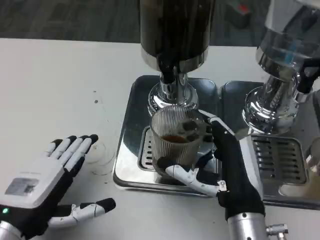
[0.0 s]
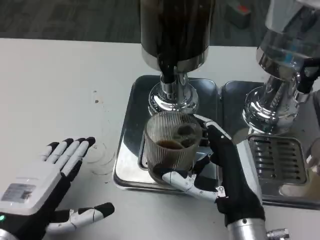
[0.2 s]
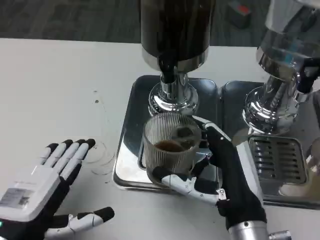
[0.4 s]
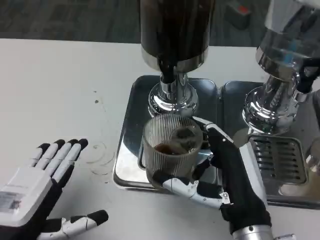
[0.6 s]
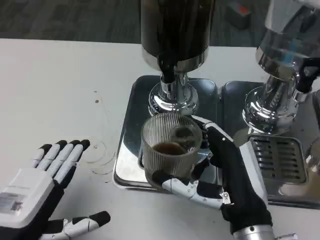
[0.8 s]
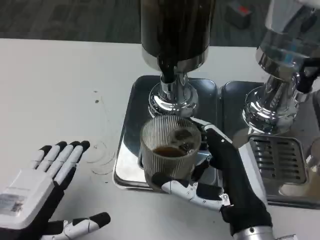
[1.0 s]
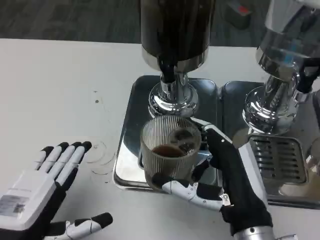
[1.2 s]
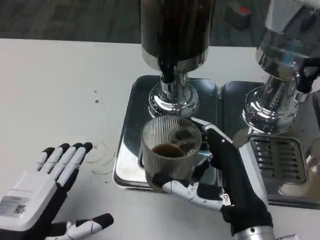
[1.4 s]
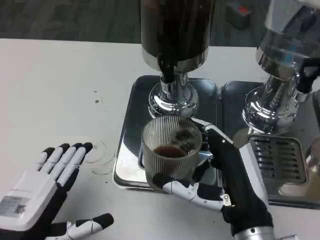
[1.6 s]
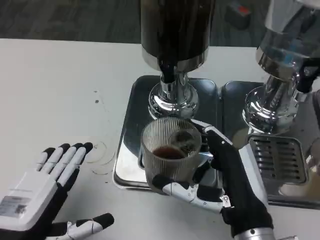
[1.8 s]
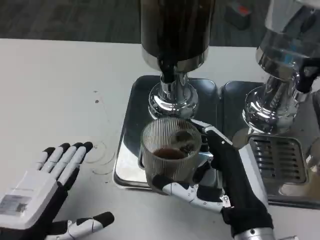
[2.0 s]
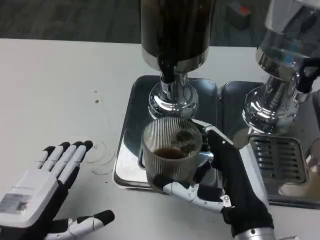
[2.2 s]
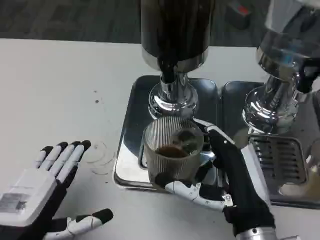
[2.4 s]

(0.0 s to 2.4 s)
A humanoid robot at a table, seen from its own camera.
Task of the whole recording: Grasp the cup under the faucet to collect the drink, then remove the cup.
0.0 s - 1.2 s: The hands make only small movements.
1.2 s - 2.4 s: The two hands keep their place.

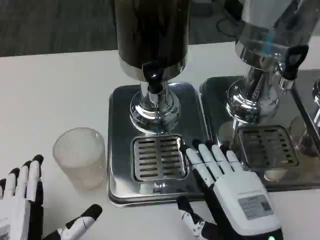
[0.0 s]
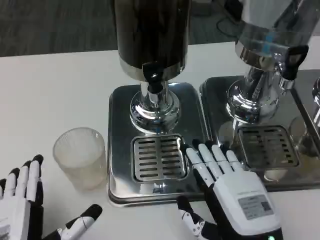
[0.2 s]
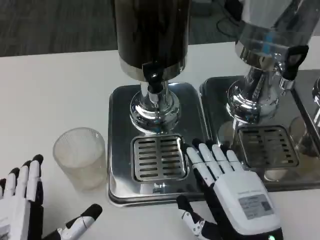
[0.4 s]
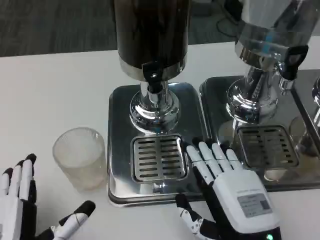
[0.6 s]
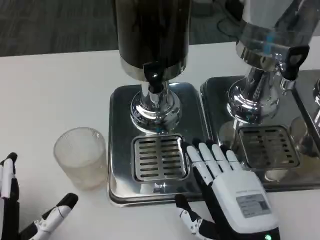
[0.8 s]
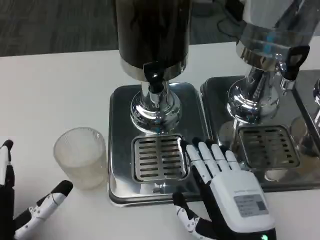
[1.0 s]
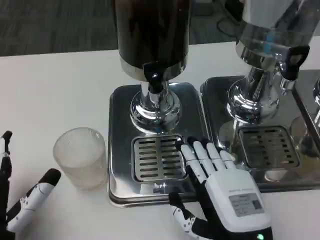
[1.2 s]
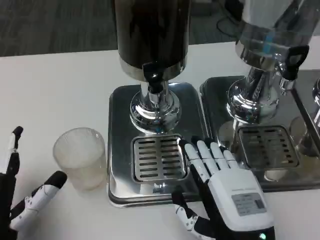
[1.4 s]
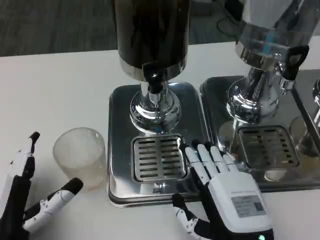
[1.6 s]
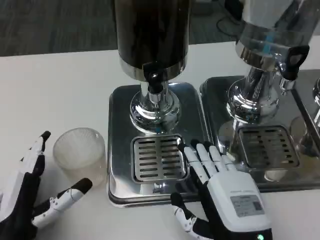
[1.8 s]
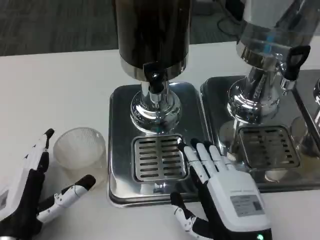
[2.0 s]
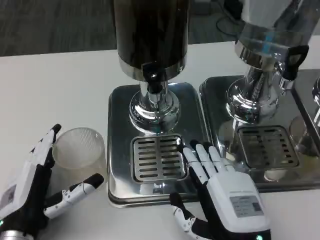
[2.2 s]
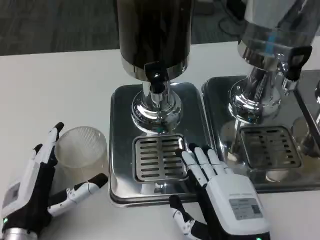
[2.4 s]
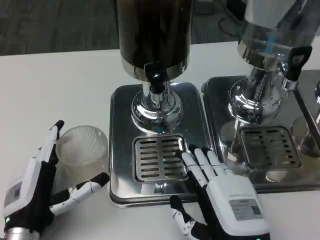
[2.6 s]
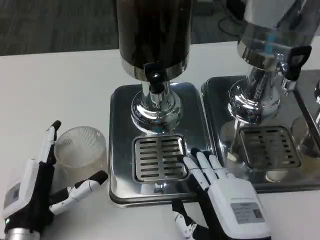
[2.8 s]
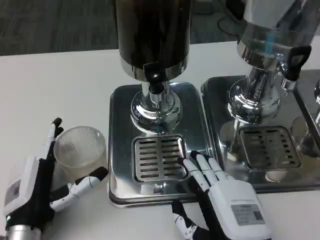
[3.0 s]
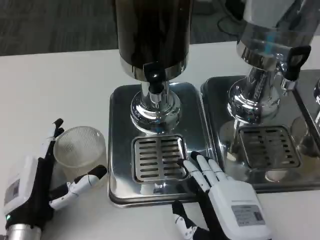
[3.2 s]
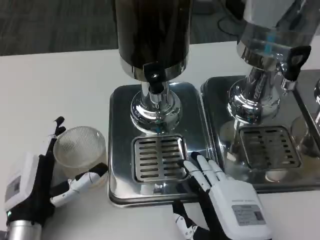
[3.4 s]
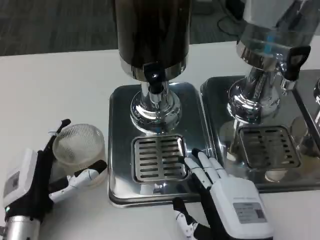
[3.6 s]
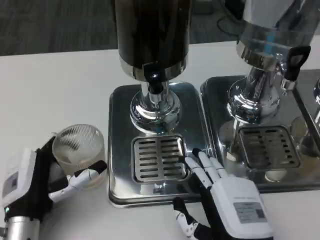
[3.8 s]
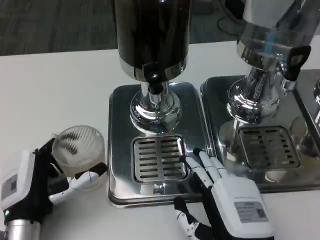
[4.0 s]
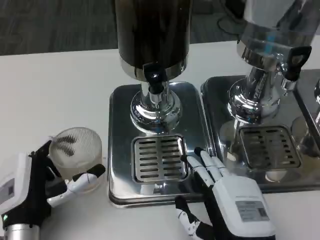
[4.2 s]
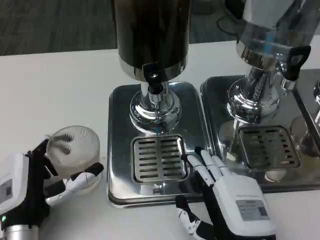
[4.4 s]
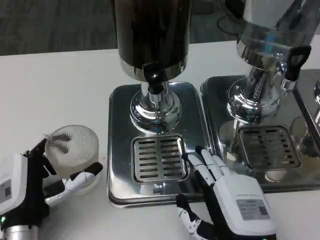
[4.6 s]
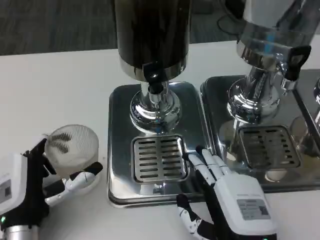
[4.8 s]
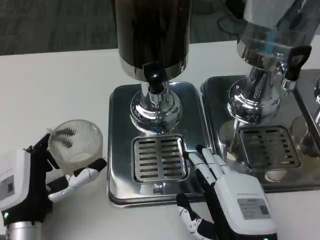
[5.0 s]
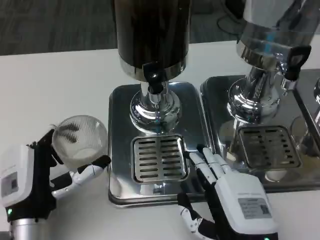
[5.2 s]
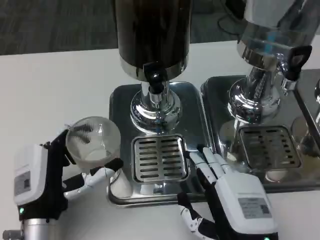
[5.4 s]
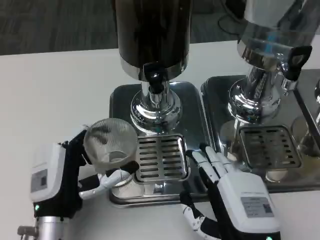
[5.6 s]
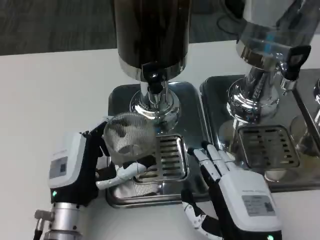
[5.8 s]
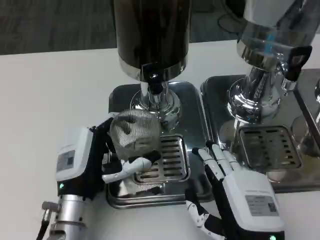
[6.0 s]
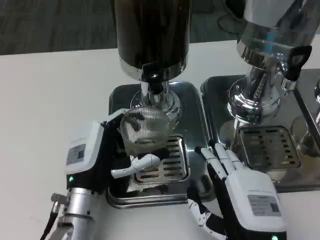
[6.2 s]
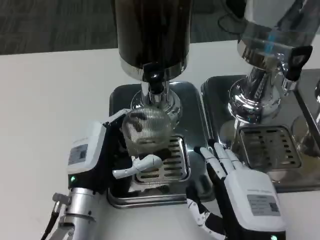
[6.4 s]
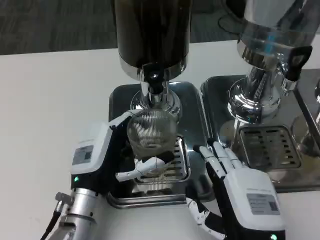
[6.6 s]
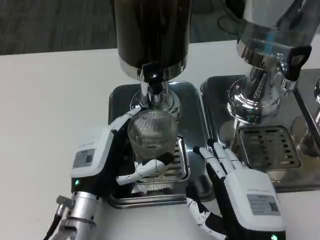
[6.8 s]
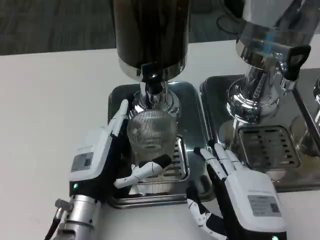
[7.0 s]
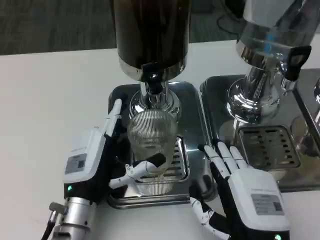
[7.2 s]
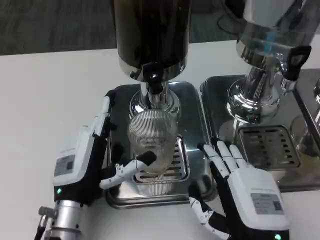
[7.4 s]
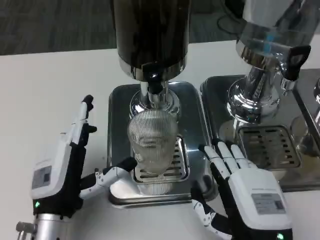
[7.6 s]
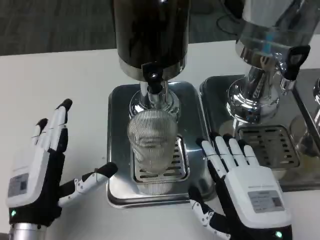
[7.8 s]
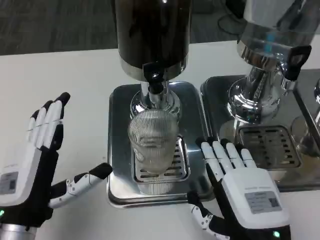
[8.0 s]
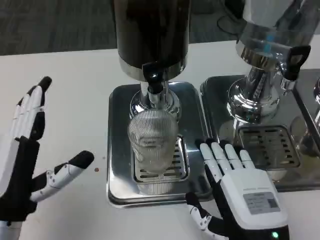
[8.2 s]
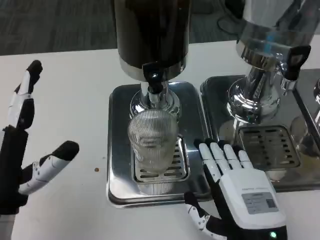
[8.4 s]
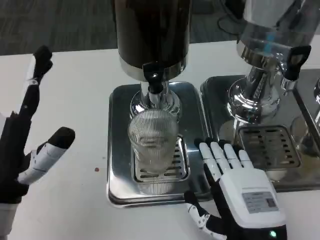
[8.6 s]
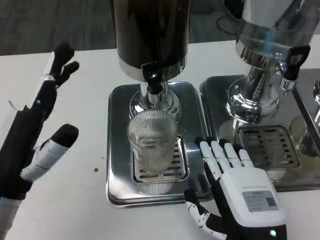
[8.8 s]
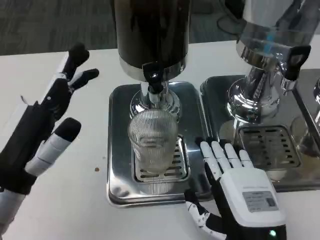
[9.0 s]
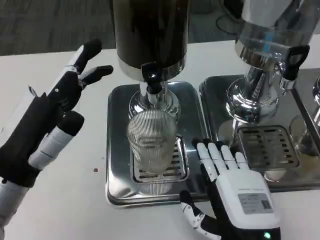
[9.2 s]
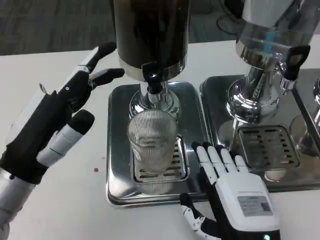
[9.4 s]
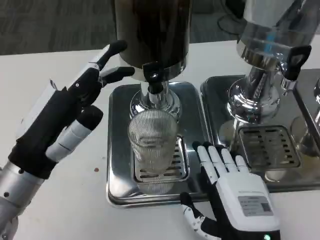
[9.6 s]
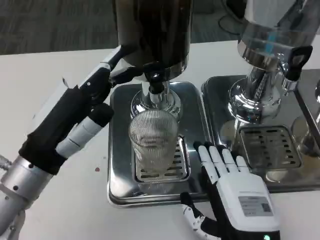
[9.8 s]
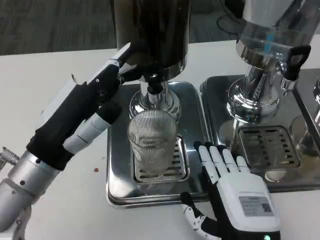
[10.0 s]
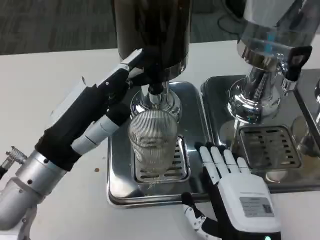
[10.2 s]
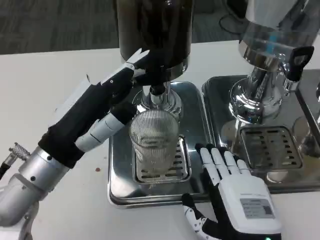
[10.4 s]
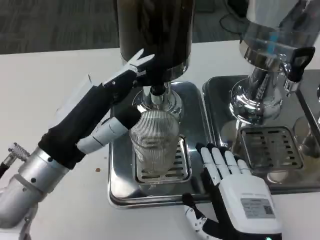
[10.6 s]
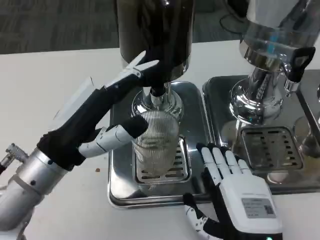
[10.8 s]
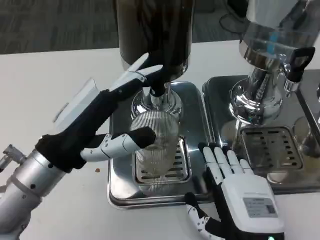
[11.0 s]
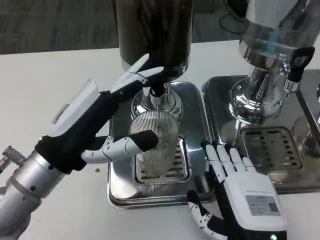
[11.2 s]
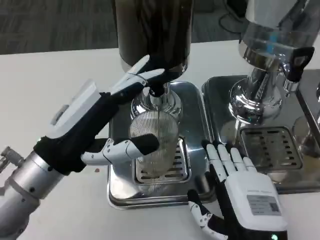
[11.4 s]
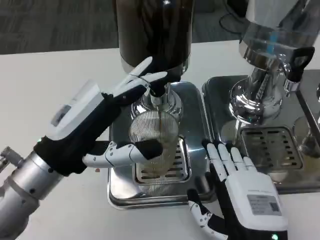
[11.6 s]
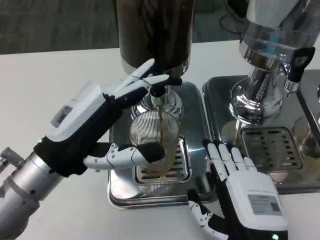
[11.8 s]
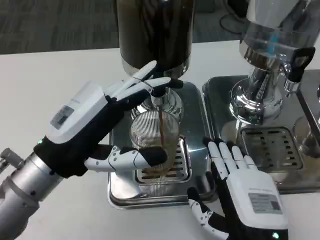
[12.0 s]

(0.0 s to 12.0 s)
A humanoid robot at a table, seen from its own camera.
Task of the whole recording: Grasp the cup under the faucet to collect the drink, then remove the cup.
0.0 s - 1.6 s: The left hand shifts about 5 cm to the left.
1.6 s - 3.0 s: The left hand changes place by some 5 cm.
3.0 s - 4.4 s: The hands move only a little.
4.4 s - 6.0 s: The left hand shifts some 5 cm to the right.
6.0 s - 7.6 s: The hands make only small movements.
7.6 s - 9.0 s: The left hand heads upward and to the left, covering roughly 10 cm.
9.0 s - 10.4 s: The left hand shifts by approximately 5 cm.

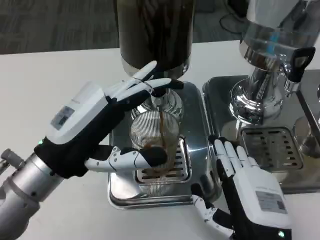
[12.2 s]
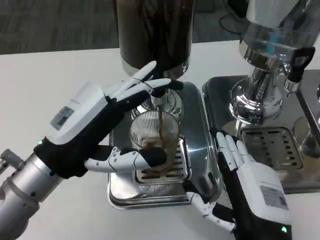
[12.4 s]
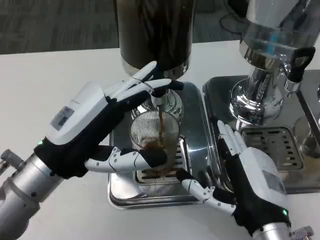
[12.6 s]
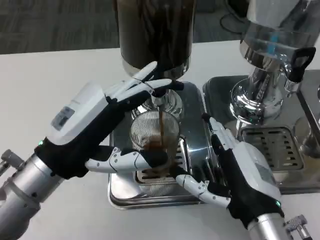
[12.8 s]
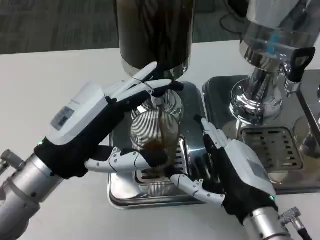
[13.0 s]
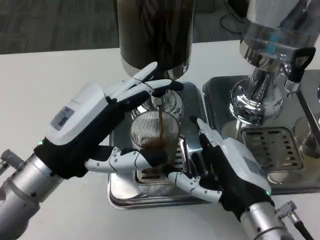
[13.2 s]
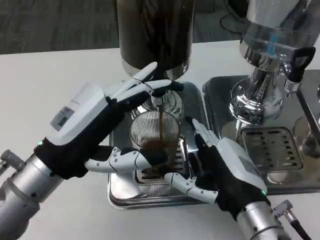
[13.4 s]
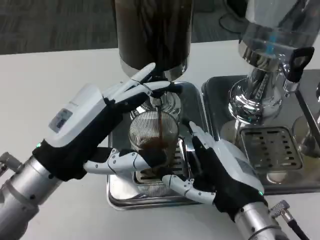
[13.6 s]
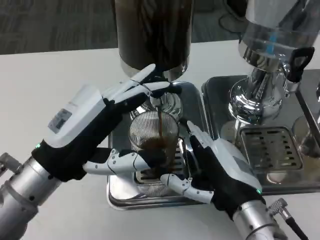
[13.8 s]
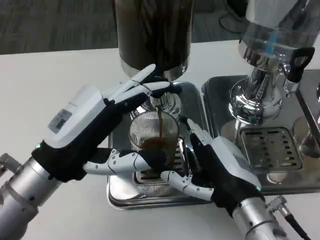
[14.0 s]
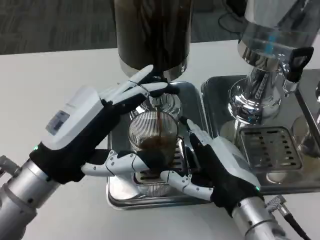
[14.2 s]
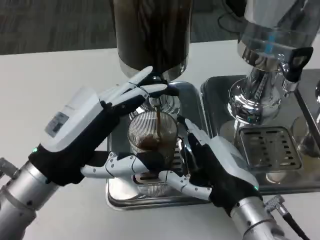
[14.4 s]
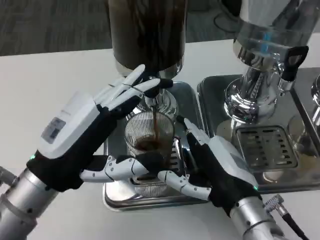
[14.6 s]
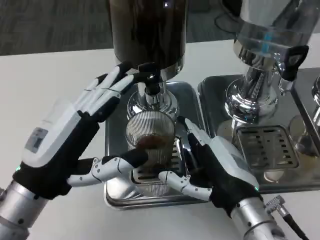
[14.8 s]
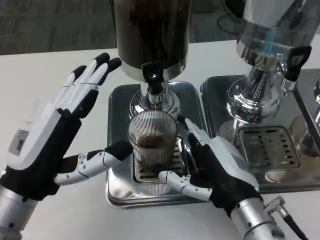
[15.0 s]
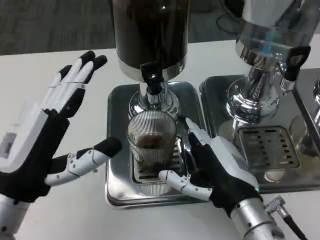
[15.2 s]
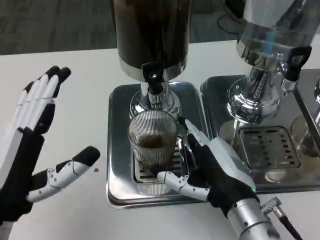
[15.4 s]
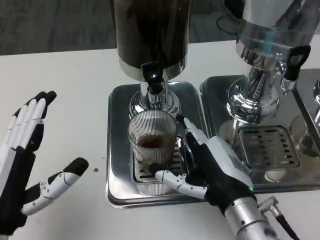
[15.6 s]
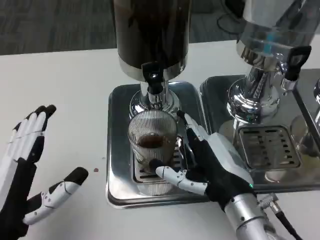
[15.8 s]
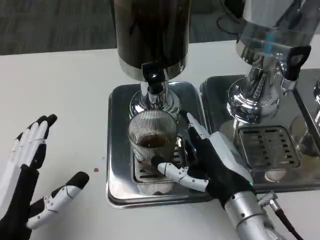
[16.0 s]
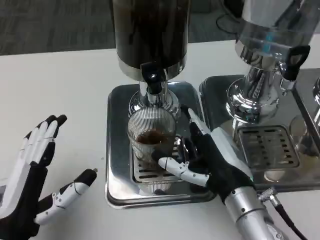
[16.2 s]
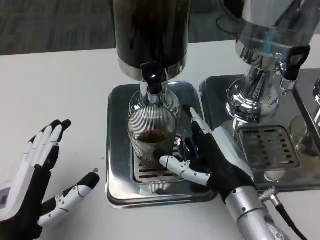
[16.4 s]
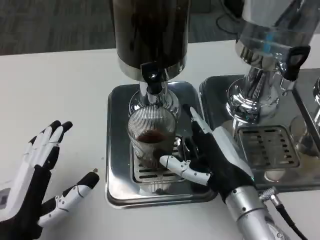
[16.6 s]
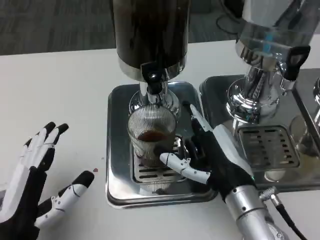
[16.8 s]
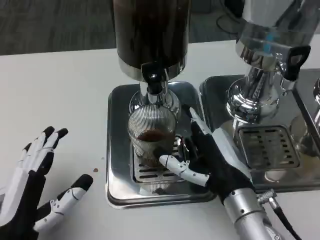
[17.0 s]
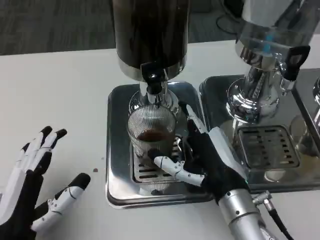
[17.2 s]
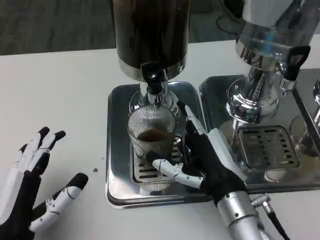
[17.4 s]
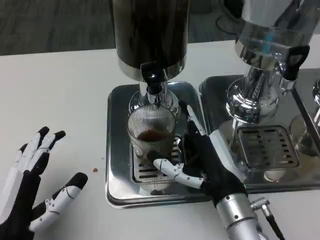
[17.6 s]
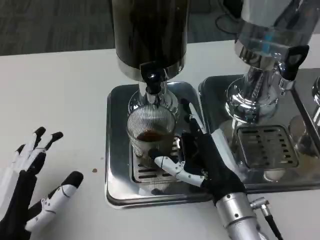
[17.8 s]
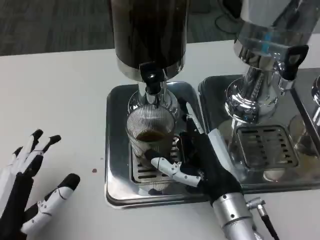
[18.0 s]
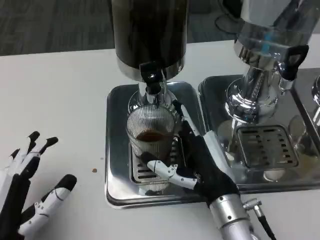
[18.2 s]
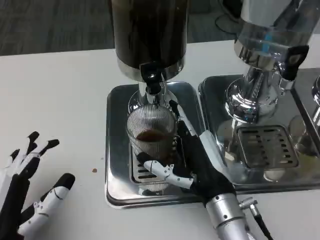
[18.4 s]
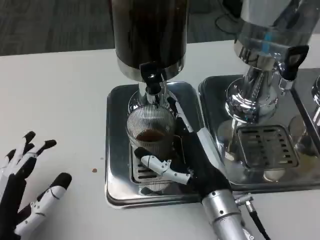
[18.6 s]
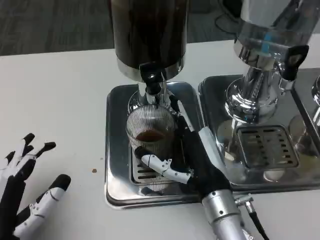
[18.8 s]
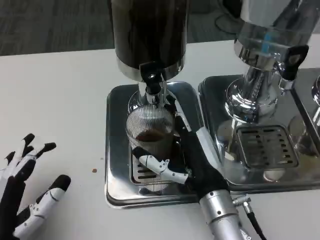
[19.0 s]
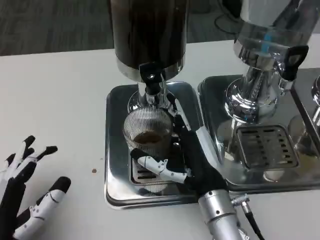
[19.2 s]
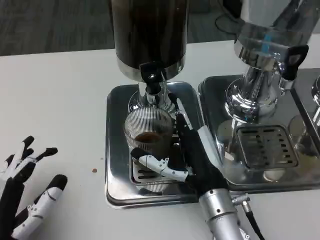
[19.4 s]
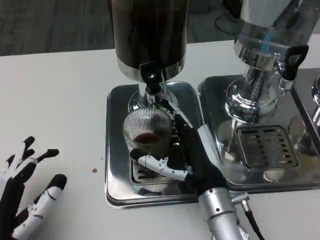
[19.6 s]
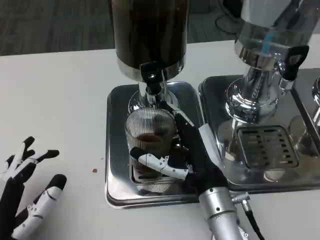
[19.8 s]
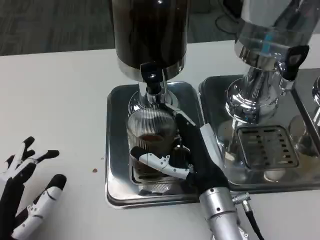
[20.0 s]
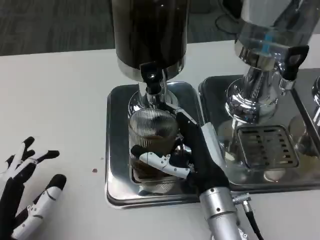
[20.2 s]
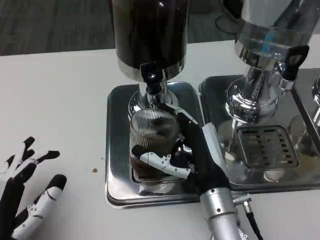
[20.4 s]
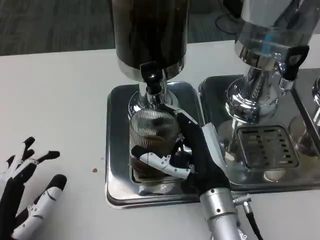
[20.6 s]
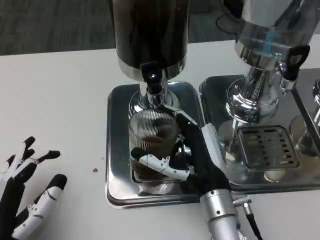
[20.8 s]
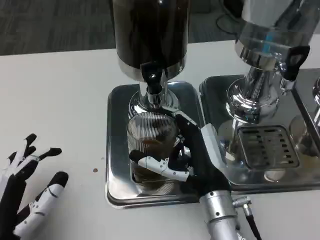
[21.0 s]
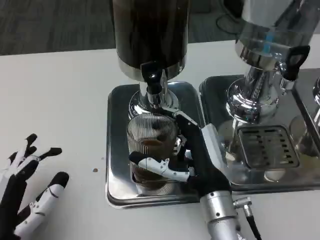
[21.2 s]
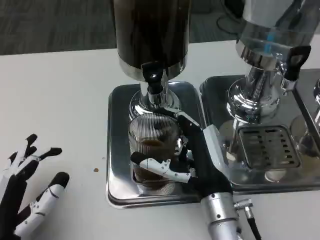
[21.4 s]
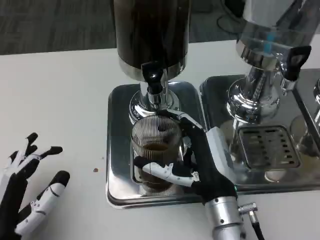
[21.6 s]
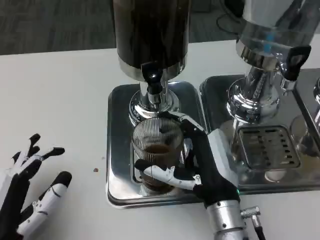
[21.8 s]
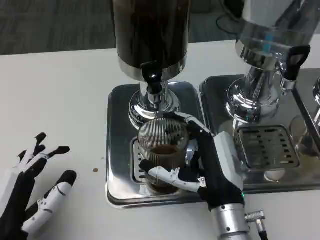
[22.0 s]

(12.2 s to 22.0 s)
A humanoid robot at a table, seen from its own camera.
Task of the whole recording: Grasp the cup under the faucet to collect the drink, then remove the cup.
12.2 s - 13.6 s: The right hand moves forward, approximately 5 cm.
15.0 s - 16.4 s: The left hand moves downward, roughly 5 cm.
16.4 s - 20.6 s: The hands stay close to where they were, moving slightly.
20.6 s - 22.0 s: The hands move only a little.
